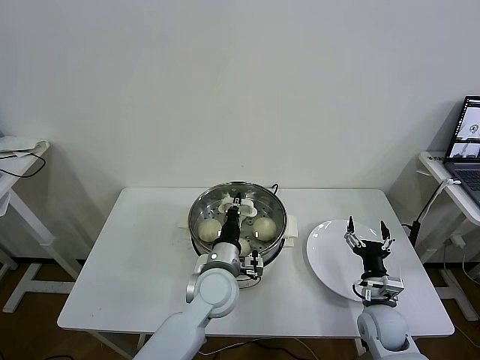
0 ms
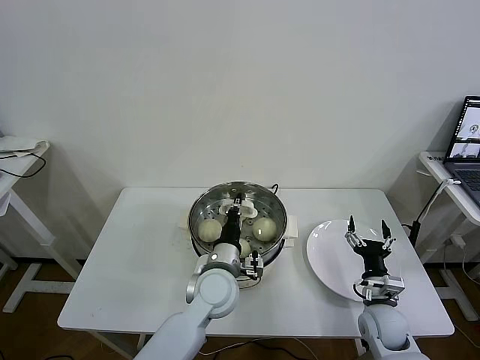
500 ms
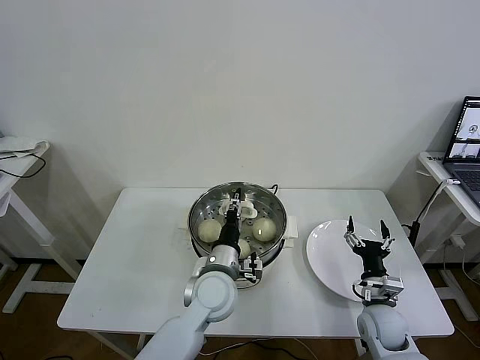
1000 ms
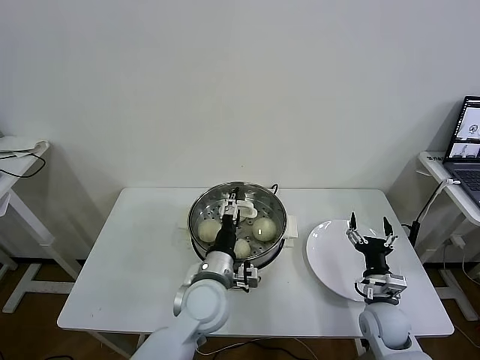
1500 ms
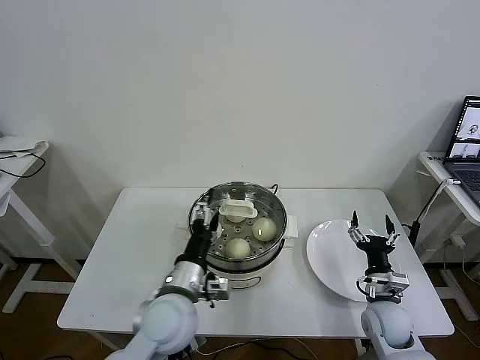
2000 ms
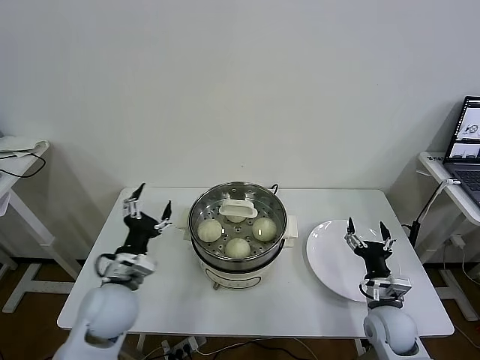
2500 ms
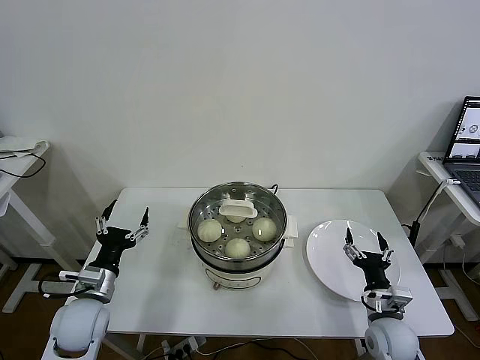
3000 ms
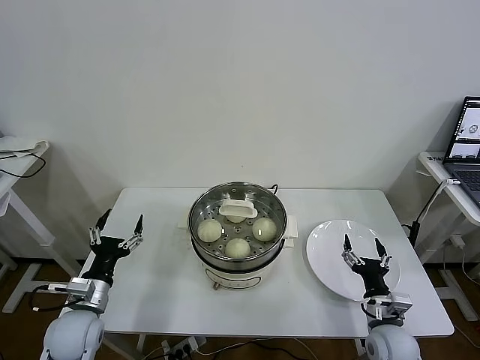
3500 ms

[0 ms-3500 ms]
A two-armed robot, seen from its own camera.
Task of the whole recording: take steamed baozi put them in steamer then cover it.
0 ms to 2000 ms: The left gripper goes about 10 cm backward and to the left, and opens.
2000 ms to 3500 ms: The left gripper is displaced to the left by roughly 20 cm.
